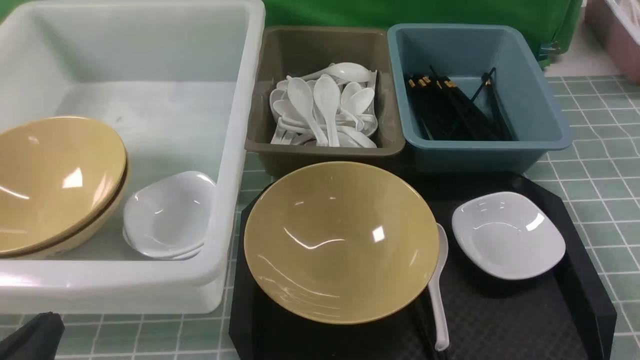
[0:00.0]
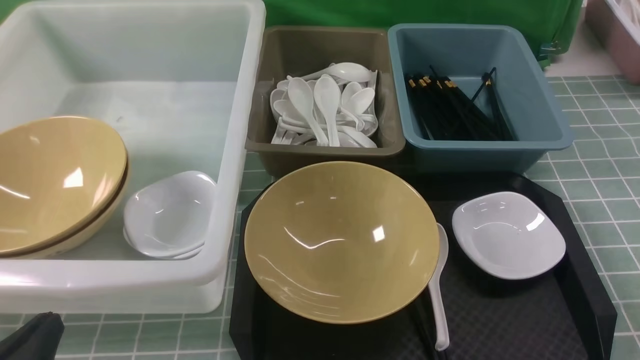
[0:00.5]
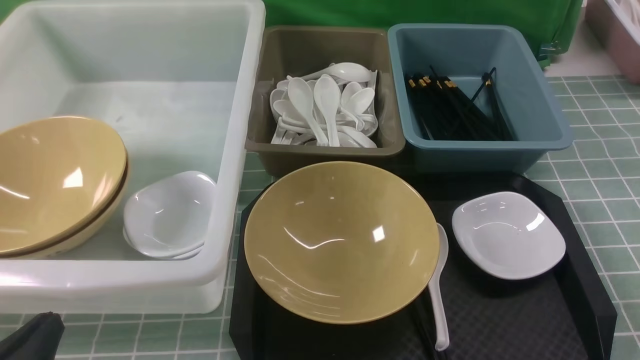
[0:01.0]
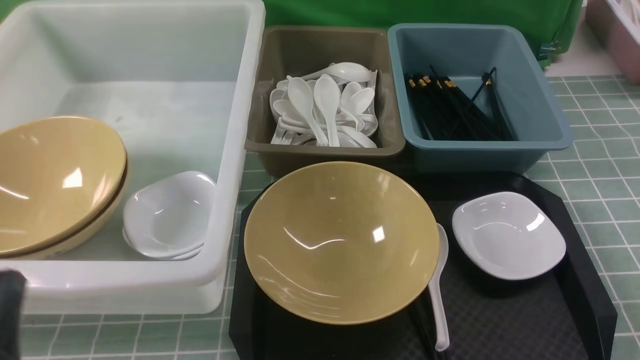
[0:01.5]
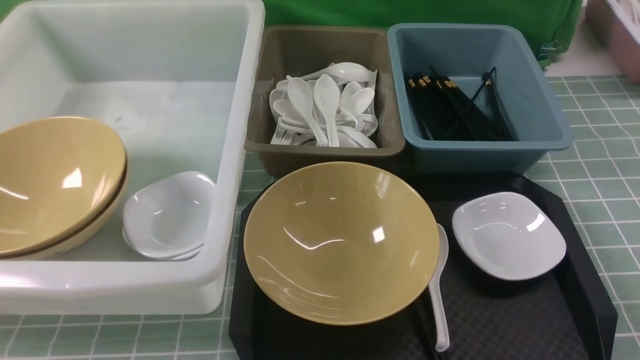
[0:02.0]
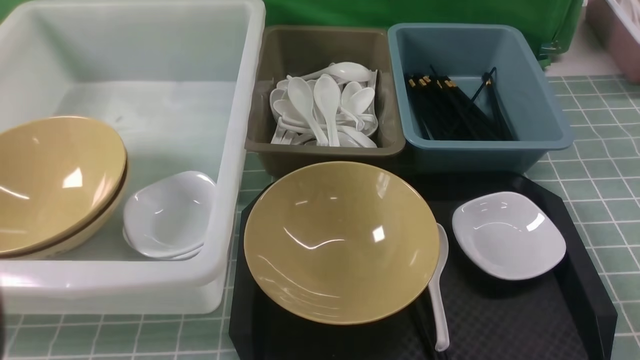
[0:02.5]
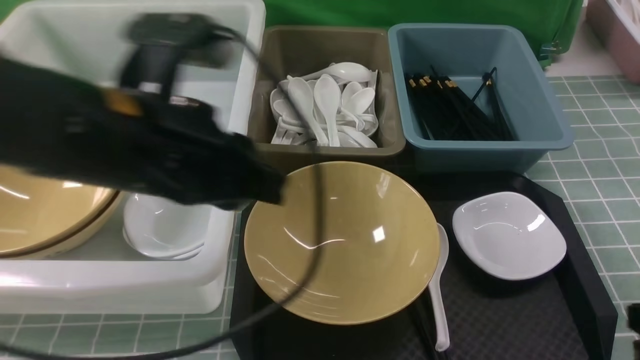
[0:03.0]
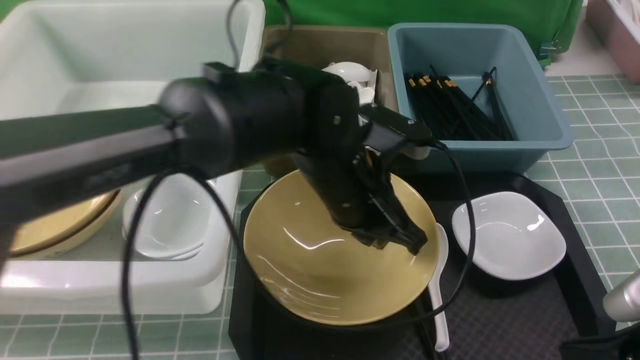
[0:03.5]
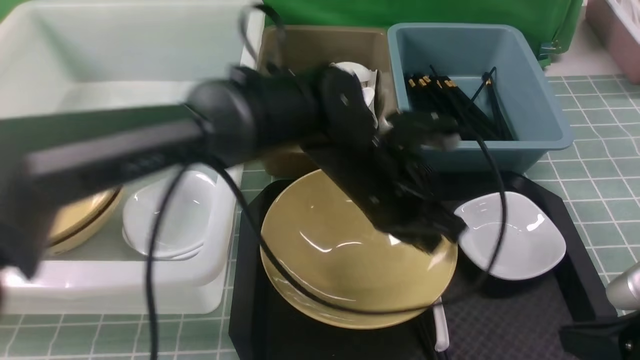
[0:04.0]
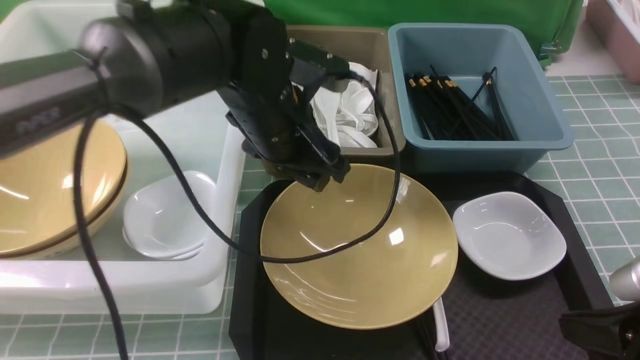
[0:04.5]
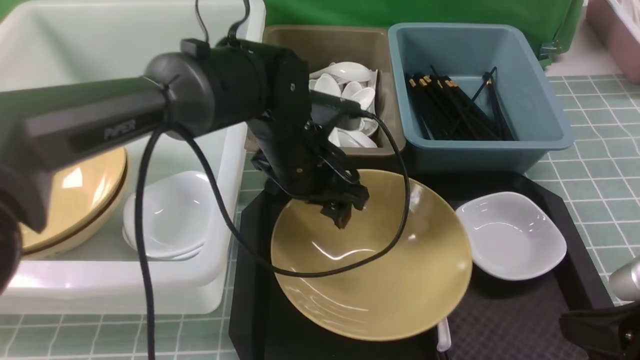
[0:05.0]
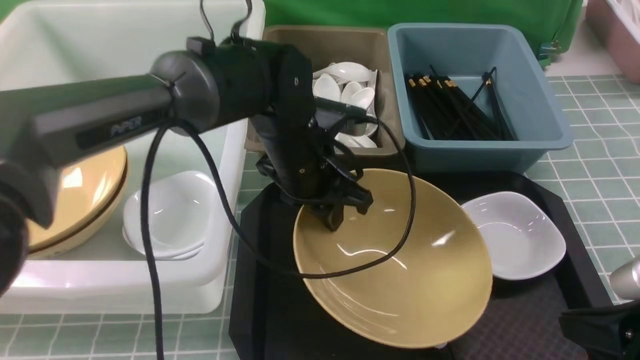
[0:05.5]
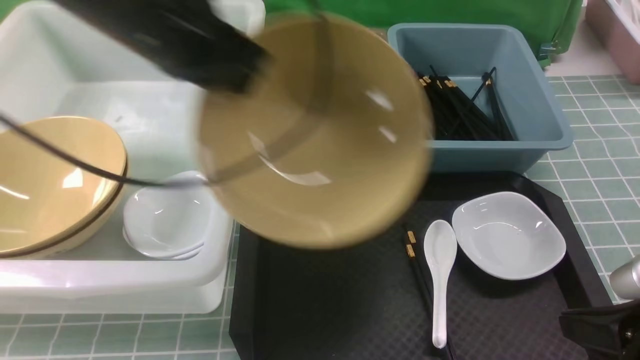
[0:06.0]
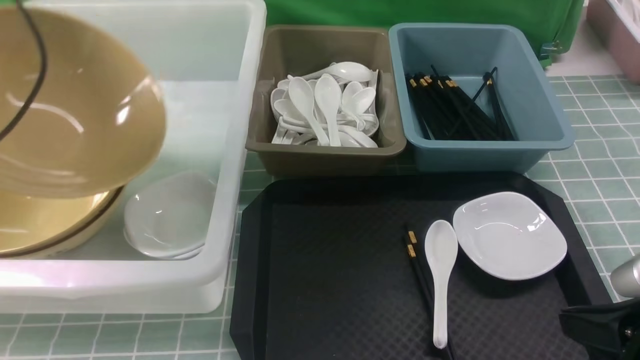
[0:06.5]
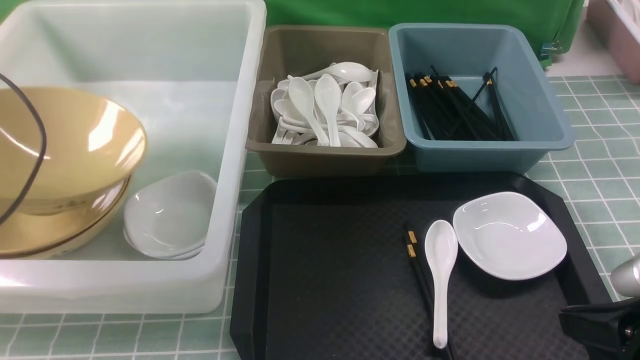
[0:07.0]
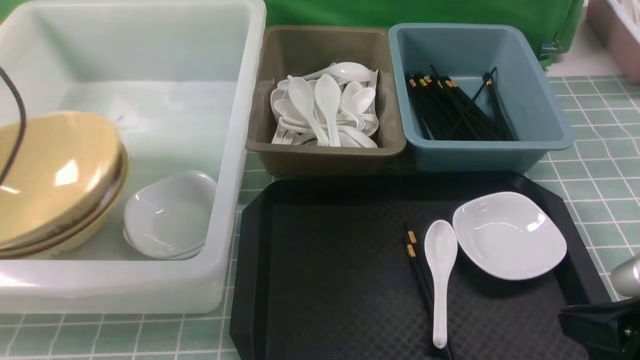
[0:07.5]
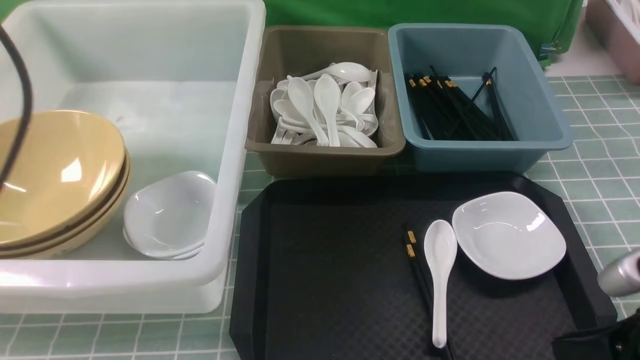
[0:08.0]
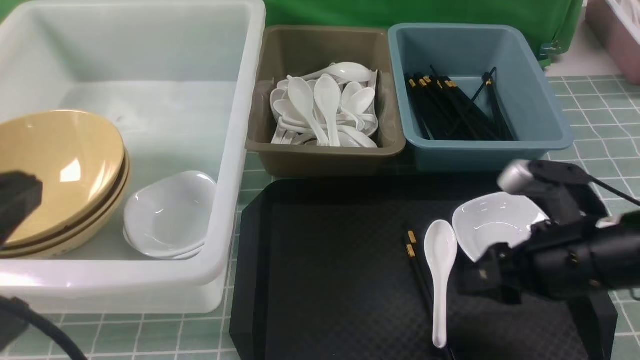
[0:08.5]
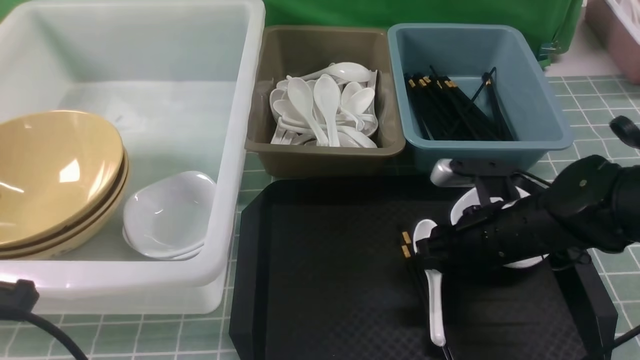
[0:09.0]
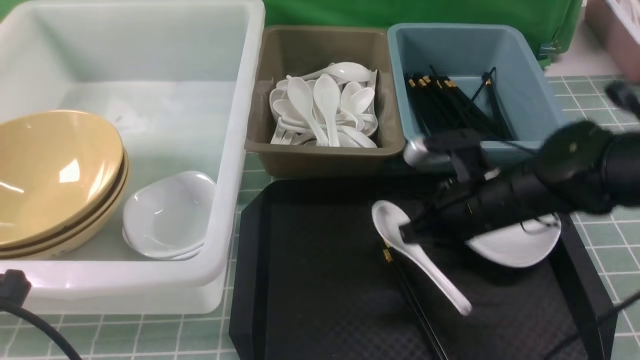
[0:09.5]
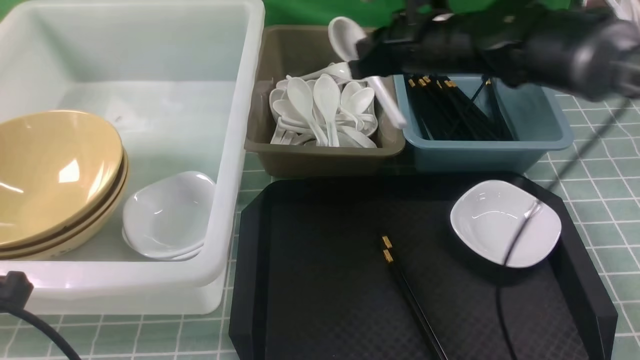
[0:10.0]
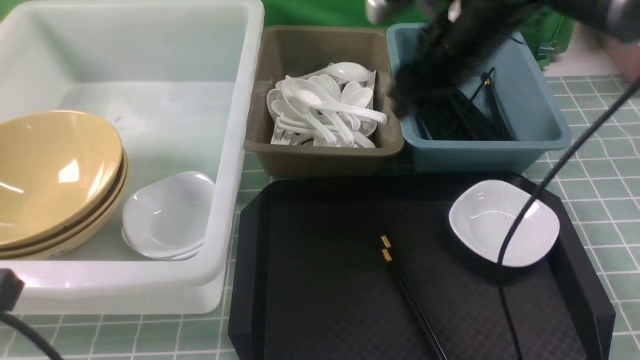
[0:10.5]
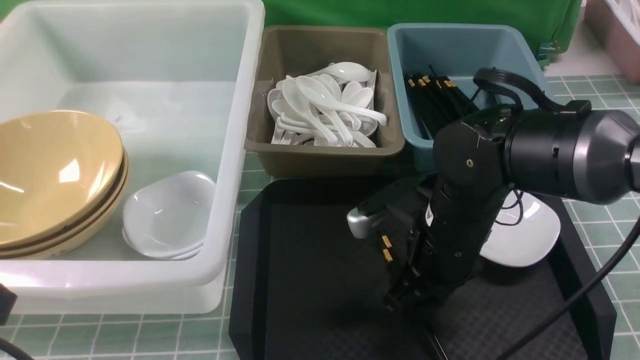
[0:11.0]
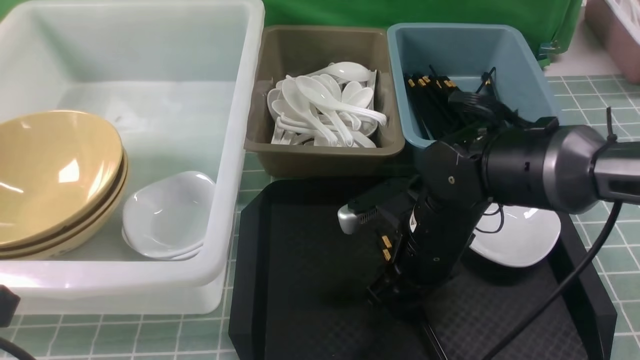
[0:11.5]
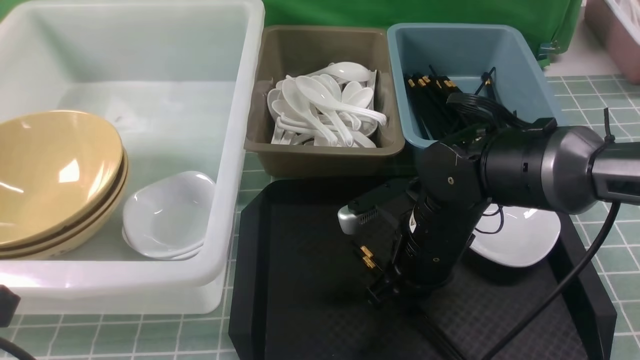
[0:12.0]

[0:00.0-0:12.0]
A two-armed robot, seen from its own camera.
Task of the whole recording: on blue table put chopsticks spoon bowls plates into blue grey white boxes.
Step, 0:00.0 to 0:05.5: use the left arm to grab the yellow noodle bowl on the left.
Step, 0:06.0 to 0:07.5: use the left arm to put the noodle bowl into the large storage box on the left.
Step, 0:08.0 to 0:09.5: use the right arm to grab the soup spoon in the middle.
0:00.0 to 0:02.0: The left gripper is displaced upward by approximately 10 cm.
0:02.0 to 0:04.0: The right gripper shifts roughly 10 cm forward and to the left; the left gripper shifts roughly 40 cm to the right and forward.
0:04.0 to 0:06.0: The left gripper shifts roughly 25 cm to the left and upward, and opens, then closes once more.
0:06.0 to 0:08.0: The left gripper moves backward, some 20 cm, and opens and closes again; the right gripper opens up.
0:08.0 to 0:10.0: The left gripper travels downward by approximately 15 cm. Meanwhile the right gripper is displaced forward and to the left by about 30 cm, and opens, then closes again.
0:10.0 to 0:12.0: The right gripper shifts about 20 cm backward and downward, and opens and closes again.

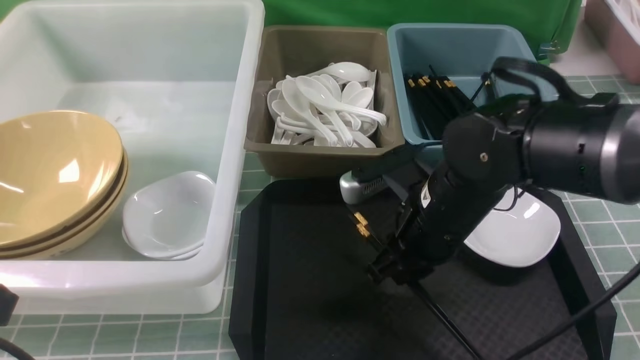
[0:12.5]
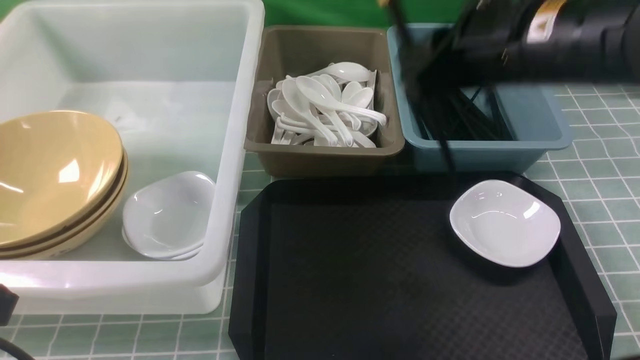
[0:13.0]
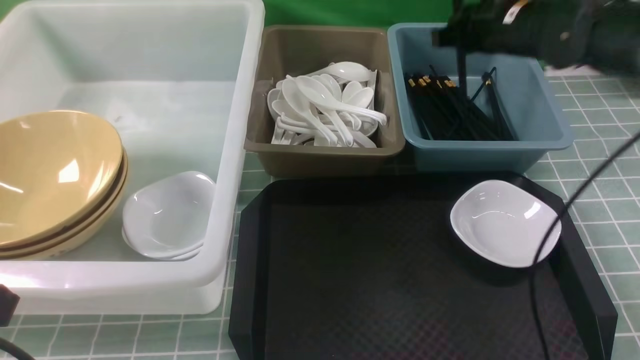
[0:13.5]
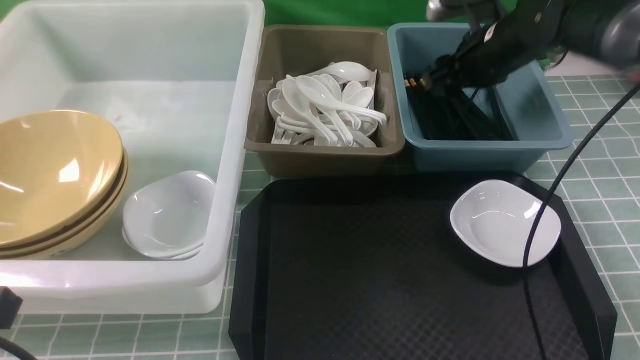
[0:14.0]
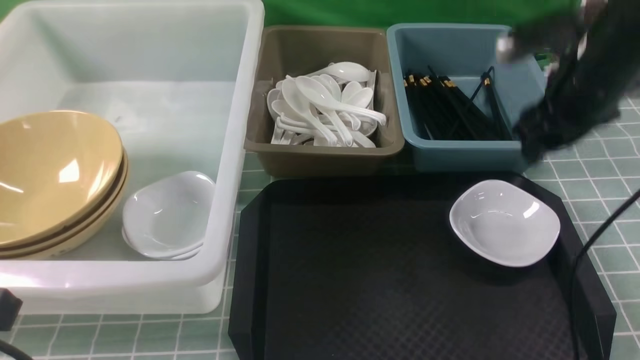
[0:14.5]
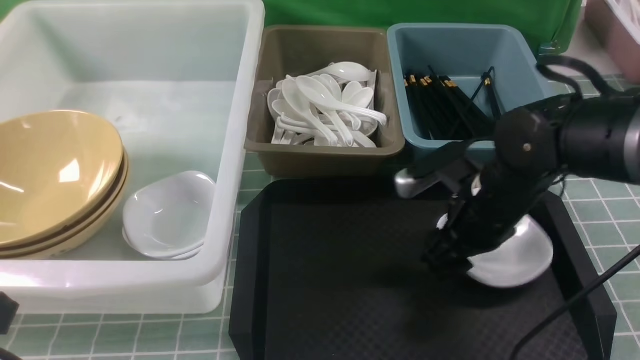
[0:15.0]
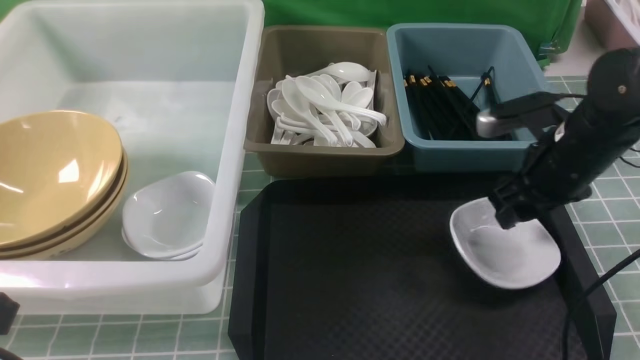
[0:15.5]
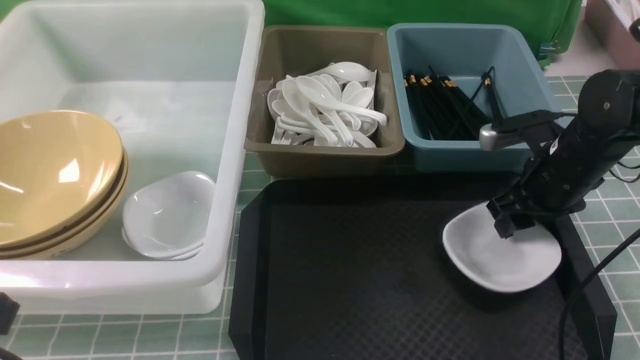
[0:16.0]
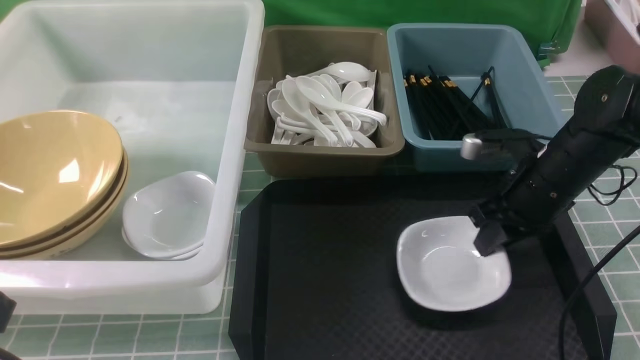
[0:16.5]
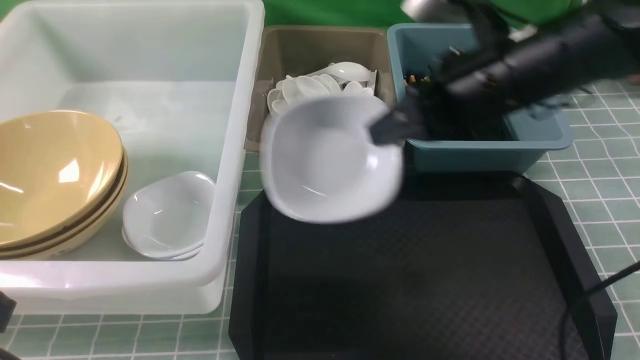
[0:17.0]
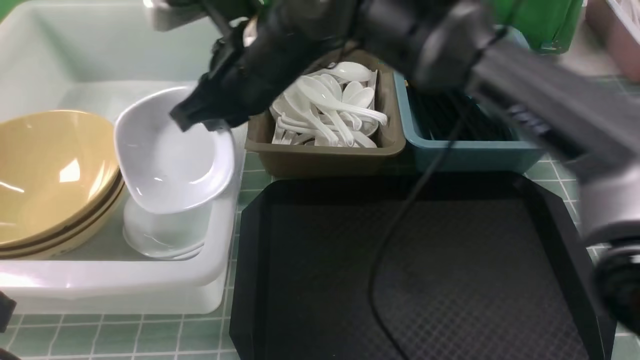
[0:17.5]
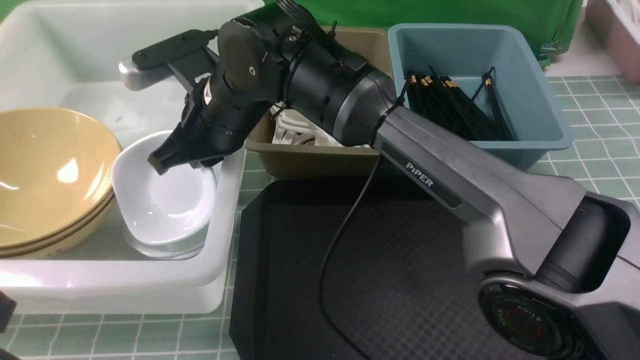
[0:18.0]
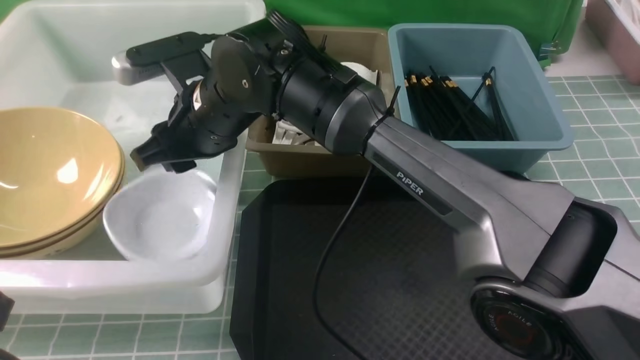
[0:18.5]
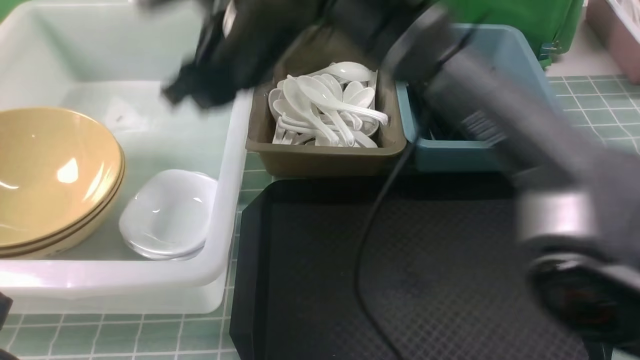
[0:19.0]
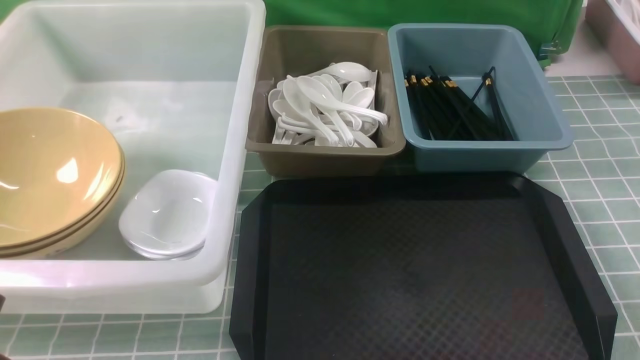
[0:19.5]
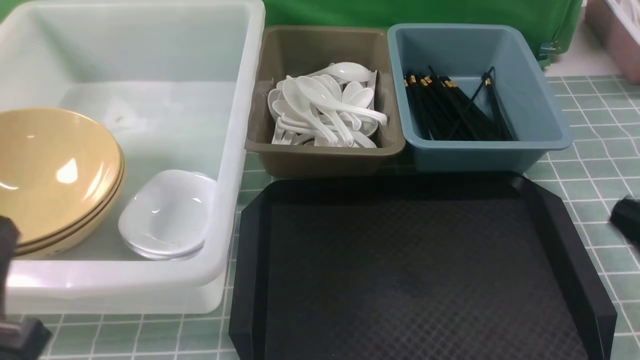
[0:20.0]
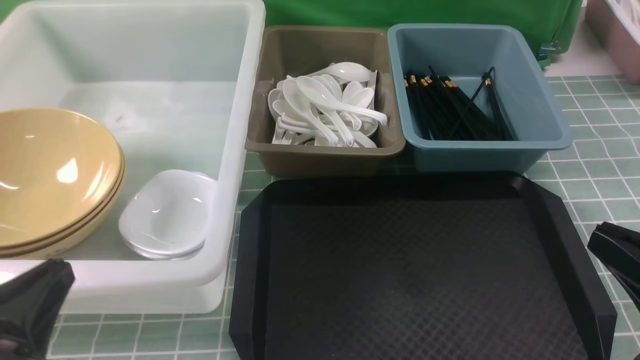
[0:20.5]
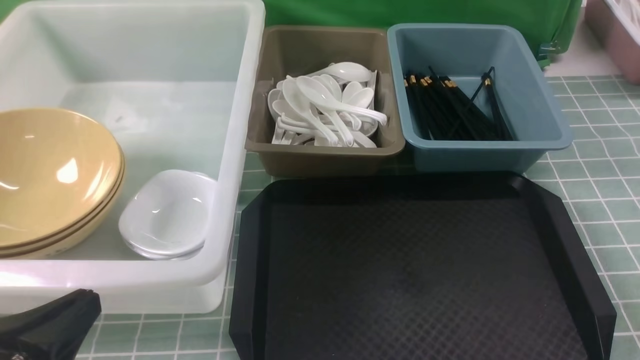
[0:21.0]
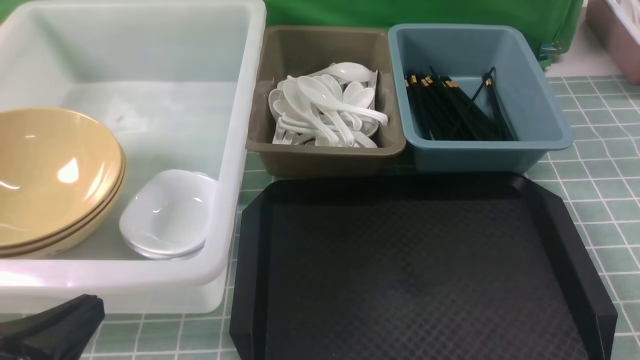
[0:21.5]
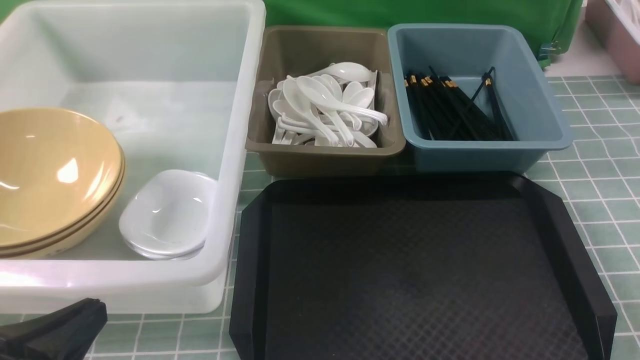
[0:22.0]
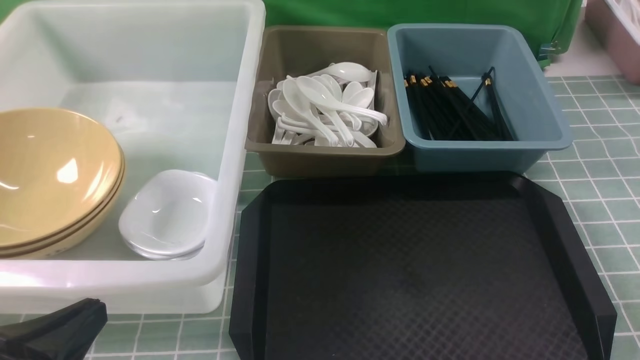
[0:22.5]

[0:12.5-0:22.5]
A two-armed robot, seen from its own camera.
Task of the whole recording: on blue table put chopsticks spoon bowls plates into blue grey white boxes.
Step, 0:12.5 to 0:14.0: use the right arm to put the chopsticks into the small storage box on the right.
Step, 0:14.5 to 0:16.5: use the right arm to grab the plate.
Step, 0:17.0 to 0:18.5: use the right arm to put the plate into the large storage box on the left.
0:12.5 to 0:14.5: The right gripper travels to the right and forward by some 15 cm, and opens.
0:14.5 to 0:16.5: The right gripper heads downward, covering some 5 cm, and closes.
0:16.5 to 0:18.5: The right gripper shifts about 30 cm to the left, and opens up.
0:18.5 to 0:20.5: The right gripper goes approximately 40 cm to the right and backward, and closes its fingers.
0:20.5 to 0:22.5: The right gripper goes roughly 10 cm downward and to the right.
